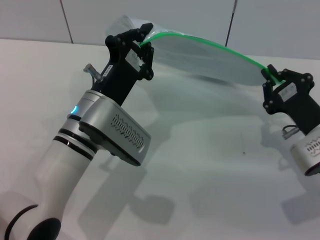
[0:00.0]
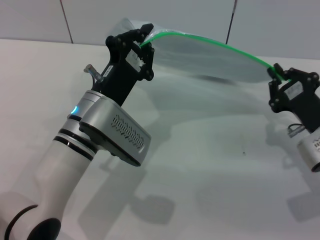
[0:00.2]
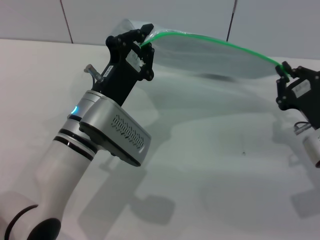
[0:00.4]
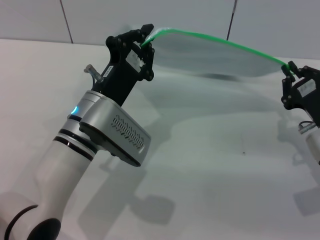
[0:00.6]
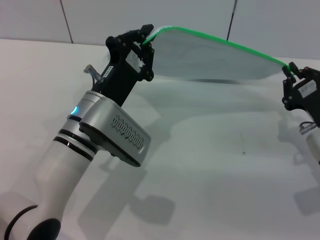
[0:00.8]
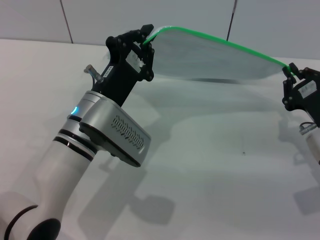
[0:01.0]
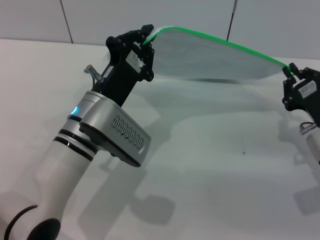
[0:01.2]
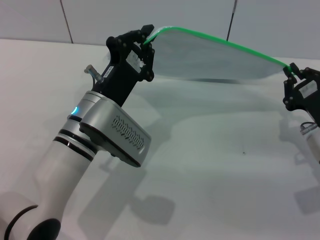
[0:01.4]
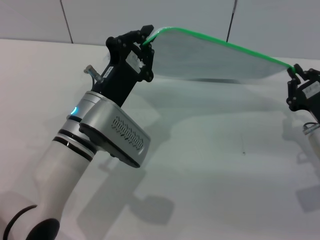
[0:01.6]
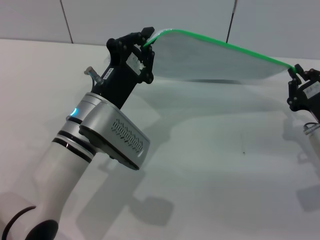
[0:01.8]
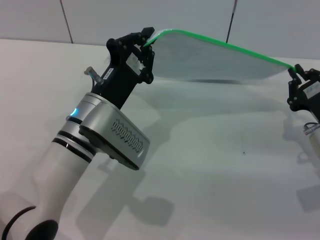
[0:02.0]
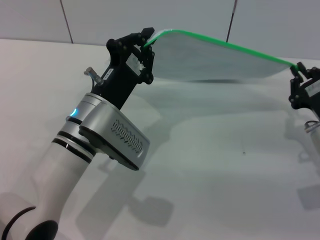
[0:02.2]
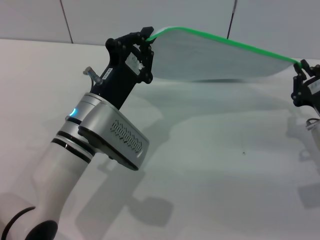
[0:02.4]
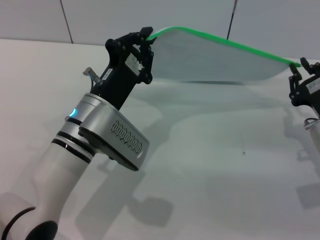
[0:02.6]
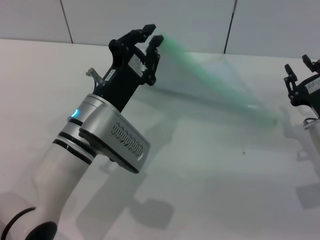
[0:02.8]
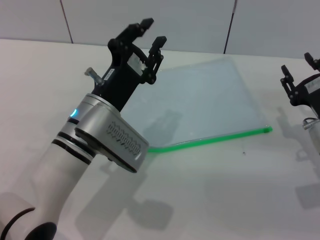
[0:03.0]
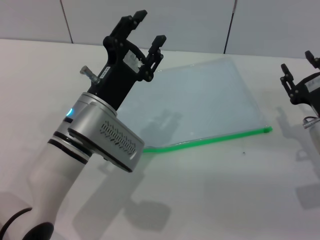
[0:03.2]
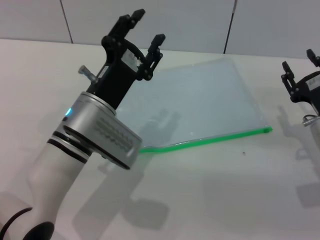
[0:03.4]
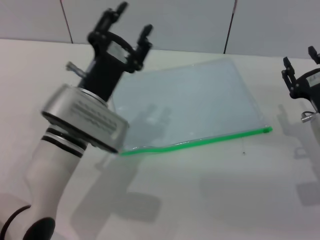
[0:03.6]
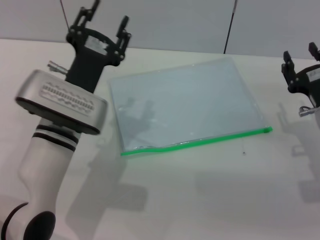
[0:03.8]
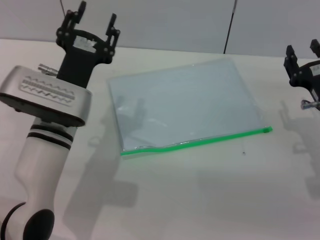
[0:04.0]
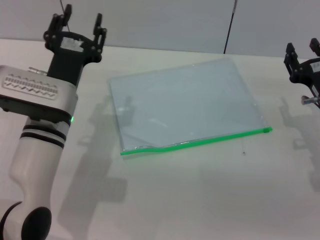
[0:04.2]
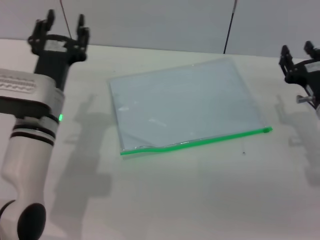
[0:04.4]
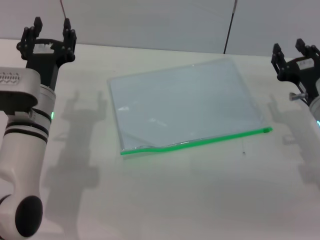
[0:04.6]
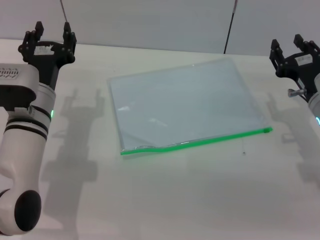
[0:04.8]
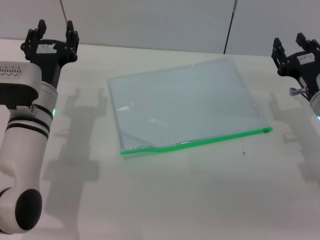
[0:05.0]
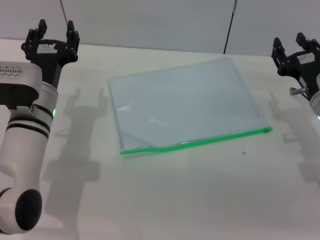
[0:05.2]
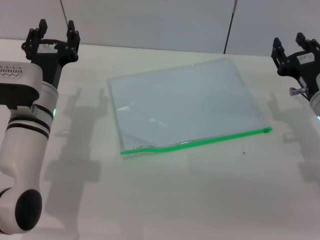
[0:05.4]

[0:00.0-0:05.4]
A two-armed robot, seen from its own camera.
Step, 0:00.0 to 0:02.4: Pulling up the zipper on the transparent plastic bag with the right gripper to close it.
Step, 0:02.6 to 0:03.2: Place the transparent plastic bag.
0:00.0 to 0:01.4: The grippers make only small movements.
0:01.4 to 0:02.8: Both grippers stay about where they are.
0:02.8 to 0:04.0: The left gripper opens up. Meanwhile the right gripper opens up.
0:04.0 to 0:05.4: The left gripper changes place by some 5 cm.

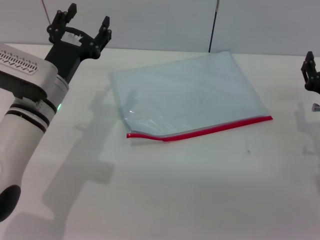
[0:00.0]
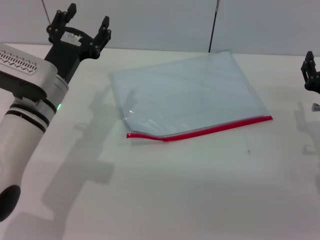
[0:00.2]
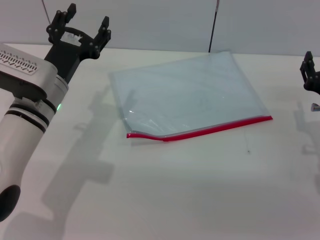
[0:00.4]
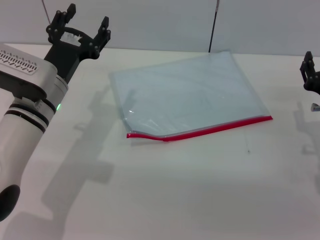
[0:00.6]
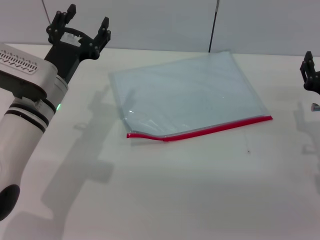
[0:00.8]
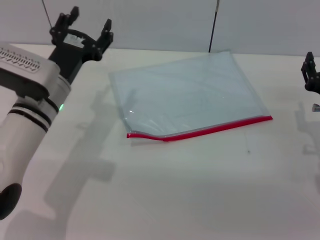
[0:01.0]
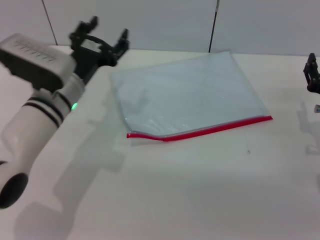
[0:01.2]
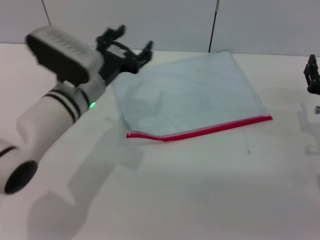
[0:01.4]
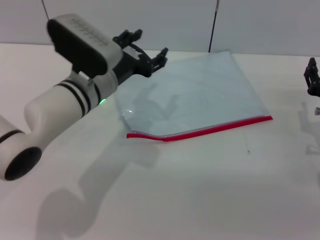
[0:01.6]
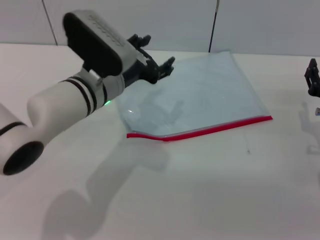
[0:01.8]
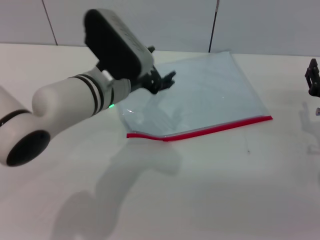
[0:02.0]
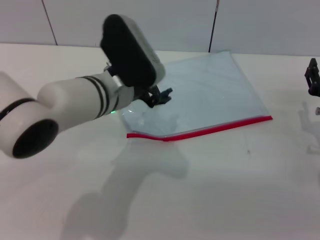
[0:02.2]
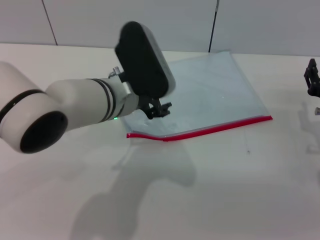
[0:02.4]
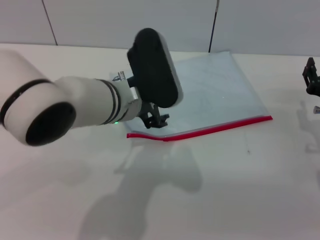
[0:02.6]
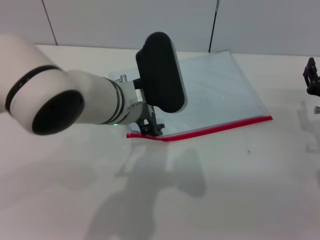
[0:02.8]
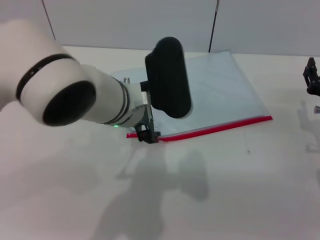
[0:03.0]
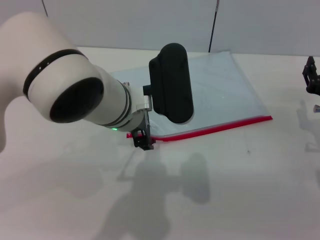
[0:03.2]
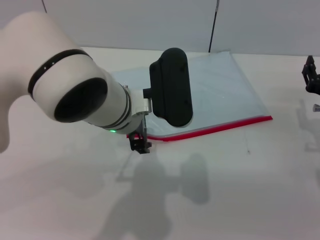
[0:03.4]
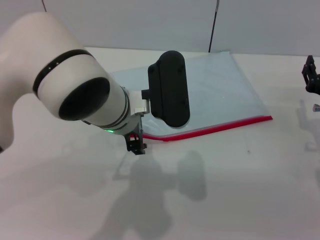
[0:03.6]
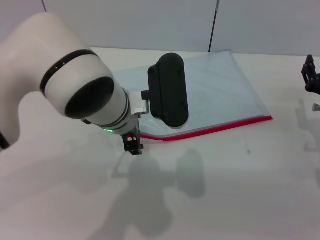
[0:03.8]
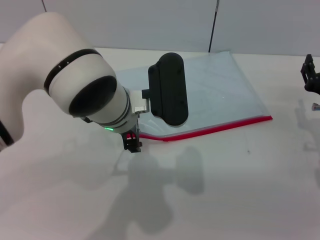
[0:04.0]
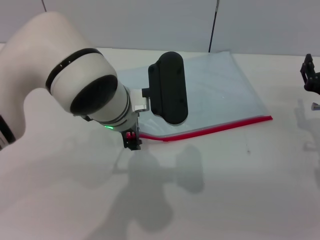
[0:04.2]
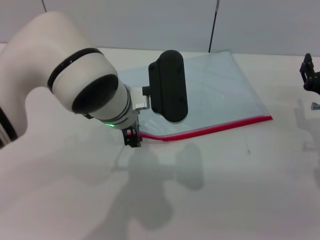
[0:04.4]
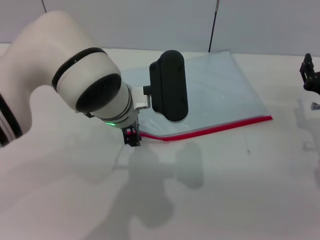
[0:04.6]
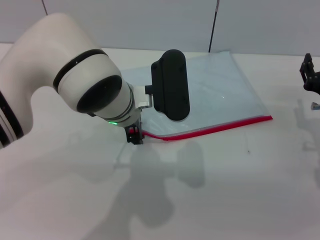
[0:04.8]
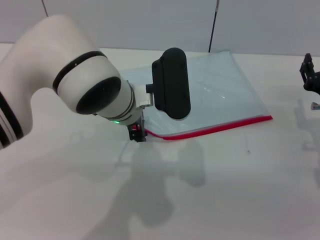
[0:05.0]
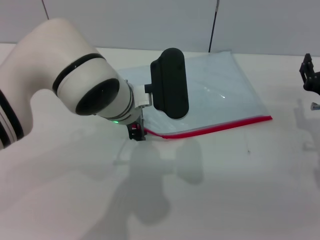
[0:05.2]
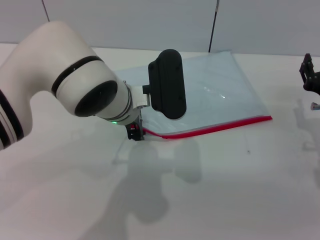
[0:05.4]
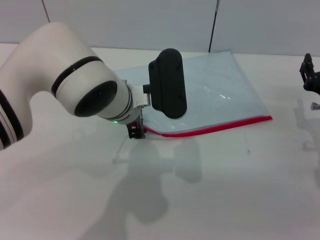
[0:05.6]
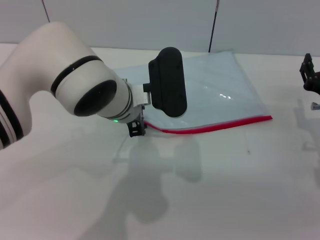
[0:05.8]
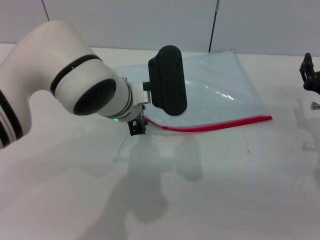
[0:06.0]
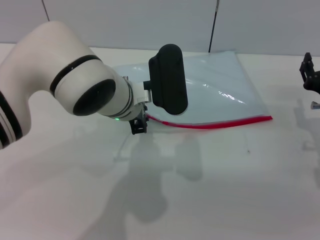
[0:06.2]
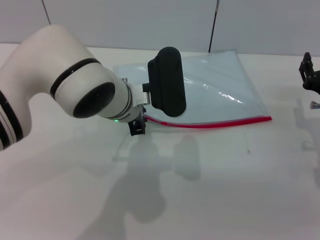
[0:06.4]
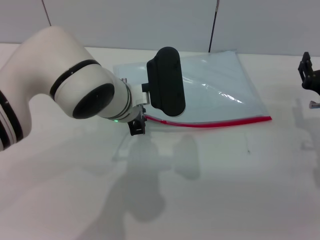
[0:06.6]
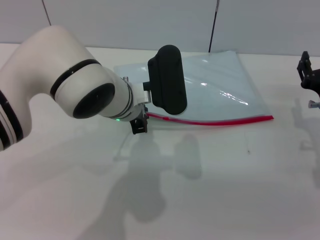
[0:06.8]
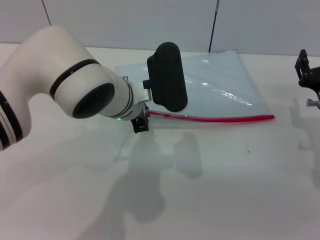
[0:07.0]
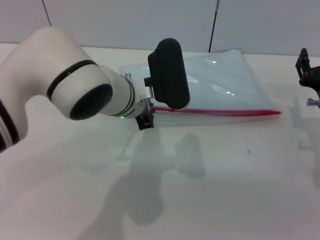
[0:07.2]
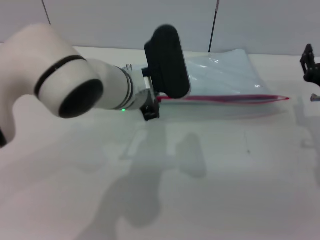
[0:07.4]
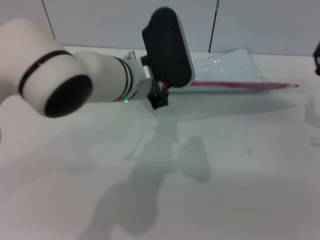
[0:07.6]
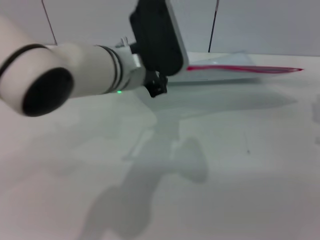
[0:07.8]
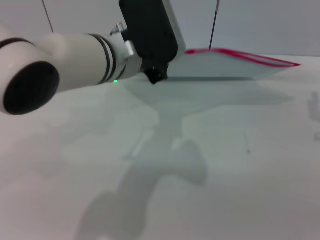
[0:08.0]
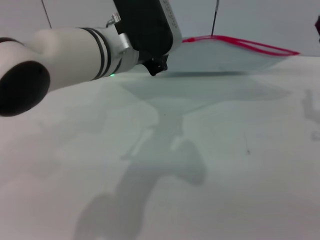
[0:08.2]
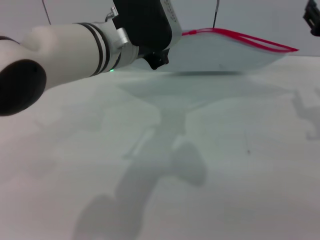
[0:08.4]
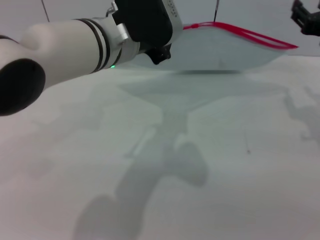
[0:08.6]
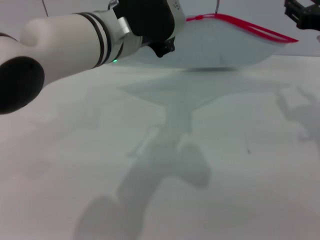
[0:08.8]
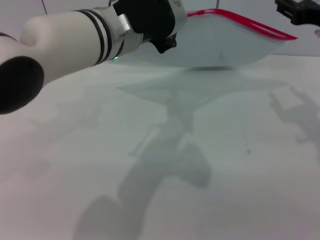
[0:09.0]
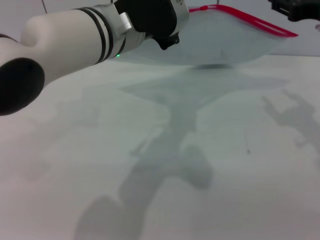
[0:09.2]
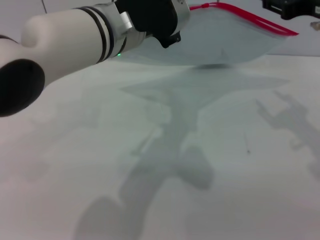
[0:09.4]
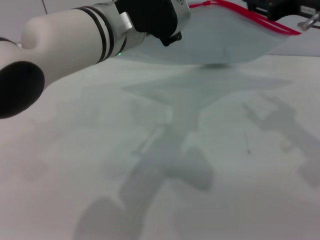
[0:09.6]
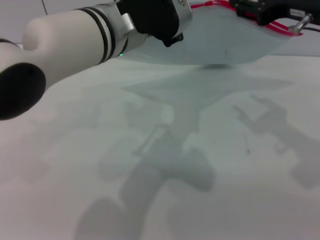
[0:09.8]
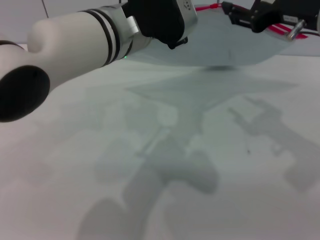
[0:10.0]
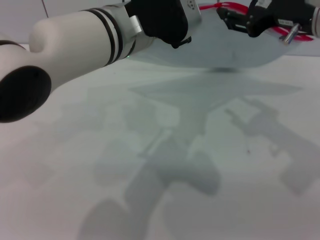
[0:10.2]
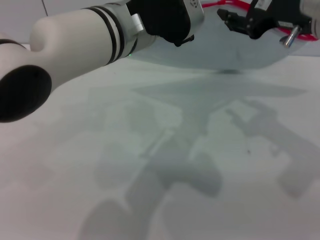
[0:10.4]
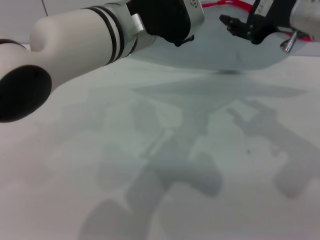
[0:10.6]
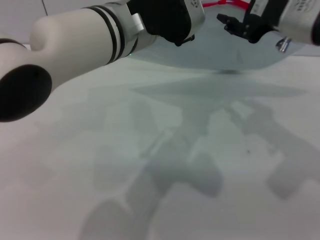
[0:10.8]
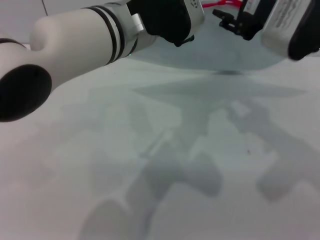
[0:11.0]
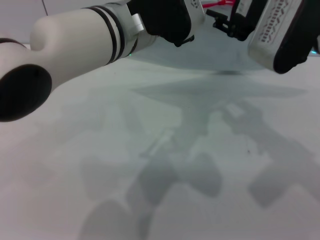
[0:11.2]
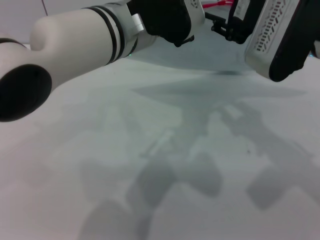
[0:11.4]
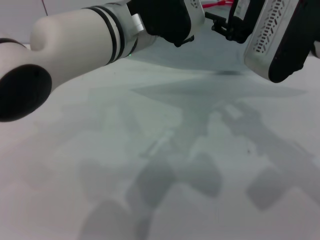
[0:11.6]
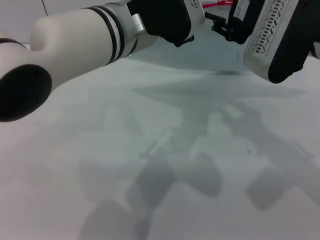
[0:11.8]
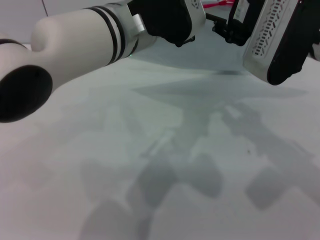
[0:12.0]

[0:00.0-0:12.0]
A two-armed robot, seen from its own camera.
Step, 0:00.0 to 0:09.0: Pick up the transparent plastic bag with the left gripper.
0:00.0 to 0:01.6: The left gripper is displaced to the right by approximately 5 cm.
0:01.6 to 0:03.0: The left gripper shifts about 10 cm to the right and upward.
0:03.0 to 0:06.0: The grippers move only a little.
0:06.0 to 0:07.6: The left gripper closes.
0:07.6 to 0:09.0: The right gripper heads upward, covering about 15 cm, while the left gripper travels upward by roughly 5 cm.
0:09.0 to 0:10.4: The right gripper shifts by roughly 5 cm.

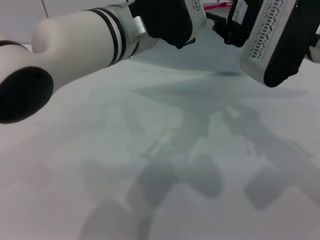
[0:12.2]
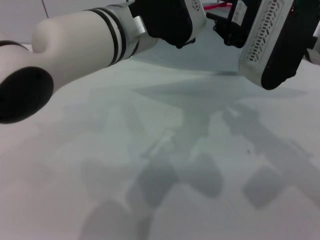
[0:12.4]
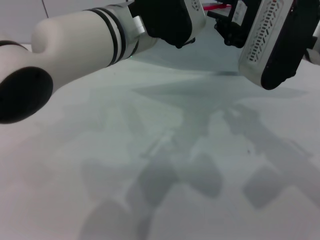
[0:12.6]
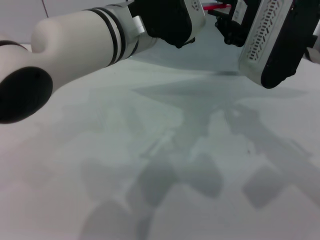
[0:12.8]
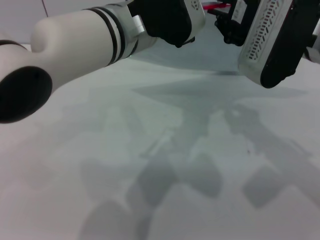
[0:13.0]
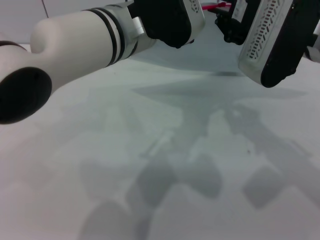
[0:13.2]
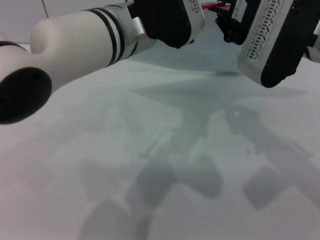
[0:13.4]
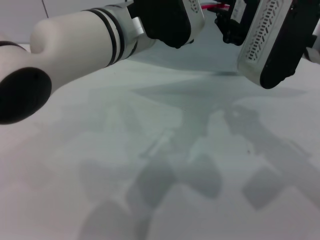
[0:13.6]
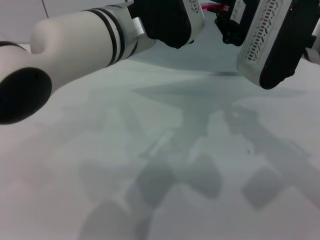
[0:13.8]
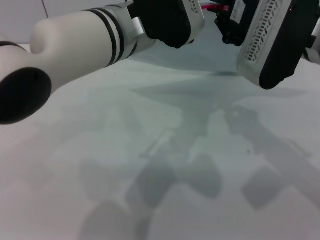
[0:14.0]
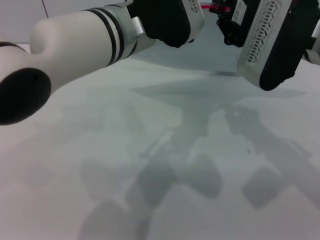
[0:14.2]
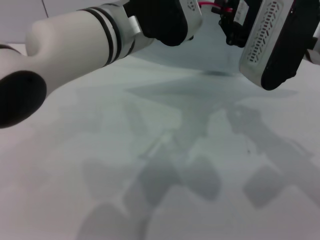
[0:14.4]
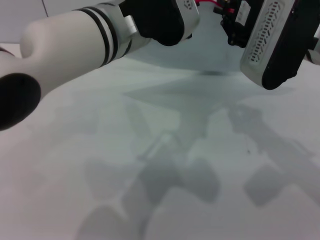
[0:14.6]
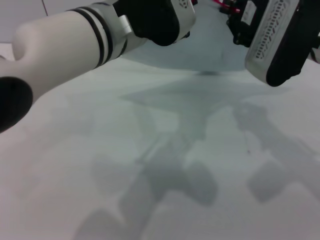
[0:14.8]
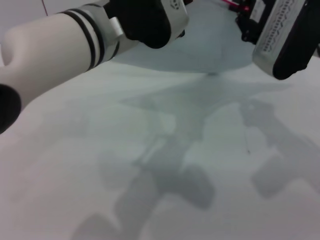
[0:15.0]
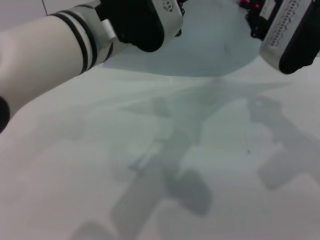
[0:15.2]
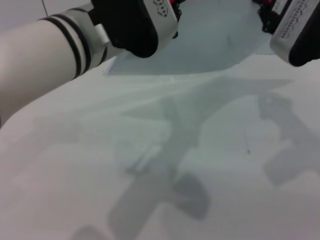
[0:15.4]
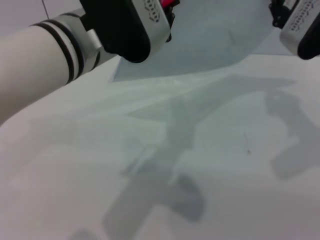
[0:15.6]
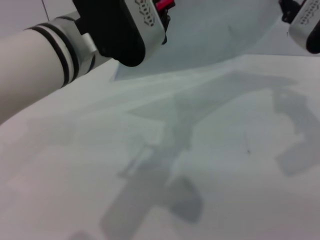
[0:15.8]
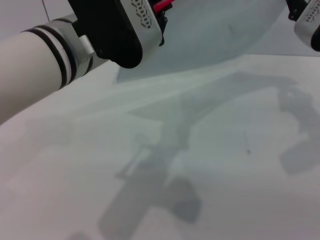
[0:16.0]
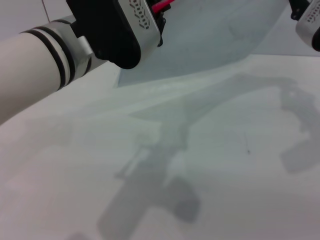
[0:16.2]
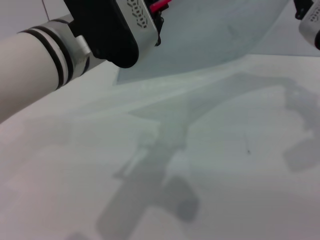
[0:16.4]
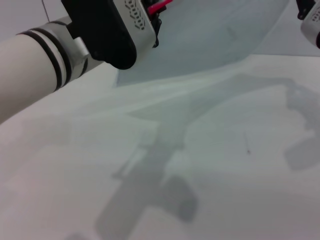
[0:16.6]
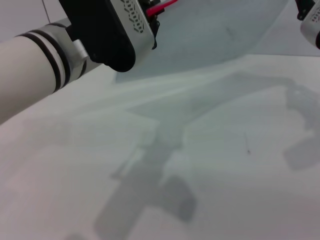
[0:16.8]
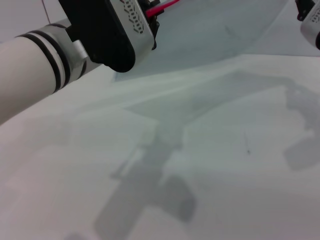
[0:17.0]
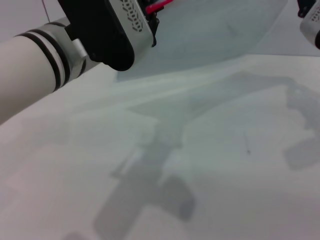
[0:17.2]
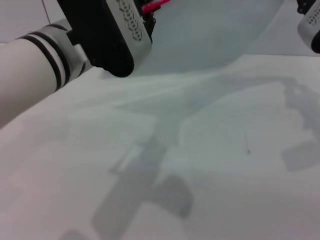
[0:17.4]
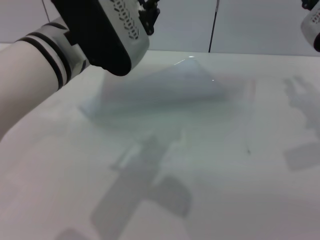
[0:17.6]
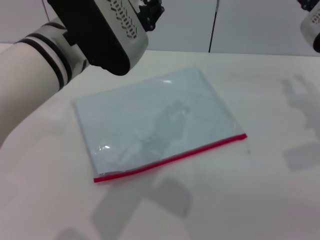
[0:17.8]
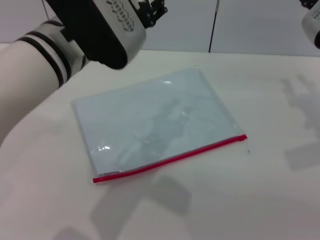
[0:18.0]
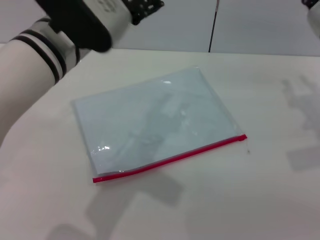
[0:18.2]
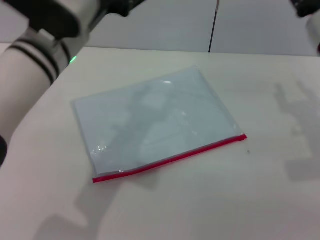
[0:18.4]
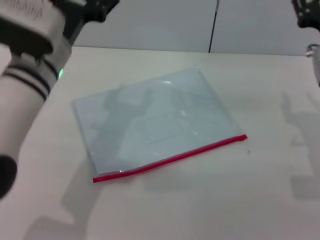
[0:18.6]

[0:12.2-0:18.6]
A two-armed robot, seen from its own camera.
Step, 0:12.2 to 0:17.2: Pulling up the zipper on the transparent plastic bag with the right gripper to close it.
Step, 0:17.6 to 0:17.8: Place the transparent plastic bag.
0:12.2 to 0:13.8: The right gripper closes up.
0:13.8 to 0:15.4: The right gripper shifts by approximately 5 cm.
0:15.4 to 0:17.0: The grippers move only a little.
0:17.0 to 0:18.6: The right gripper is displaced downward and backward by roughly 10 cm, and opens its fingers; the left gripper shifts roughly 10 cm downward and to the left, and opens.
